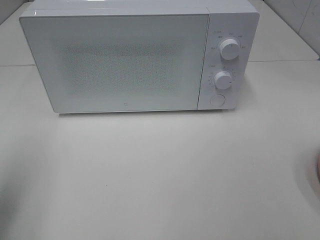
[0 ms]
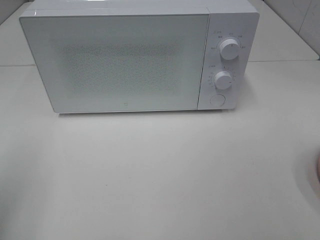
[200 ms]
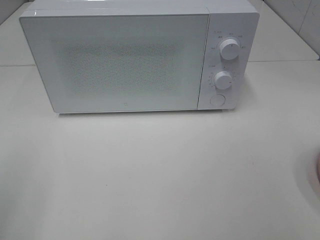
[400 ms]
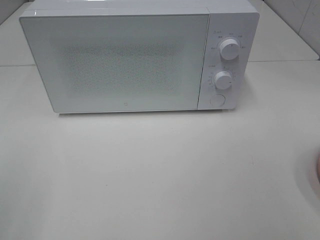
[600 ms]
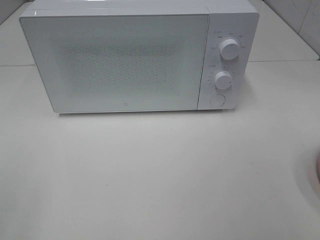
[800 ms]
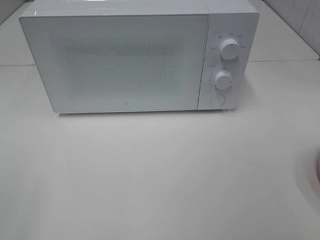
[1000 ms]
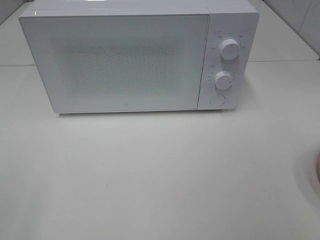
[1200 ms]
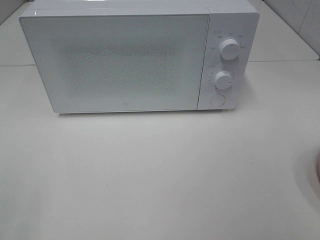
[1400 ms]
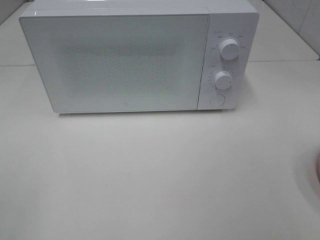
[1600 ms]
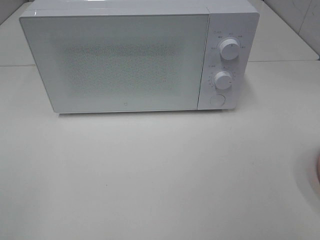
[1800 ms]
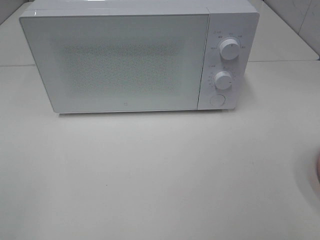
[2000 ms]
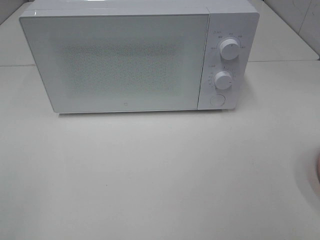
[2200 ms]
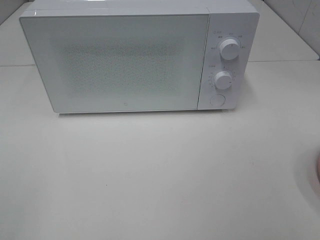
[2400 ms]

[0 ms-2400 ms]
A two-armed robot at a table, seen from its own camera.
Task of the whole recording: Heat the burger.
0 ms to 1200 ms: The left gripper heads backward, covering some 15 cm.

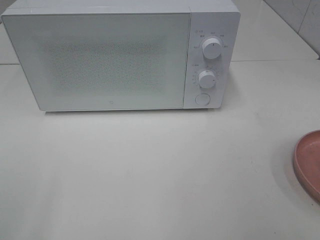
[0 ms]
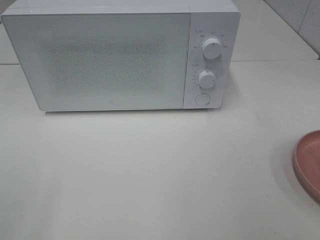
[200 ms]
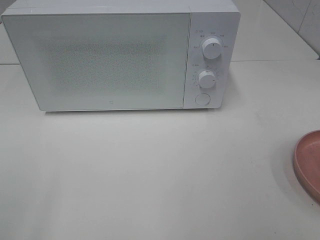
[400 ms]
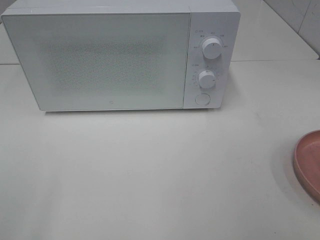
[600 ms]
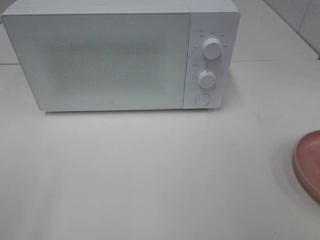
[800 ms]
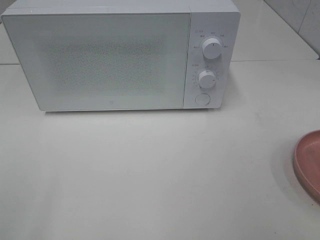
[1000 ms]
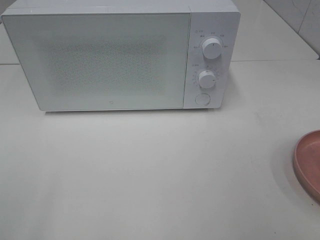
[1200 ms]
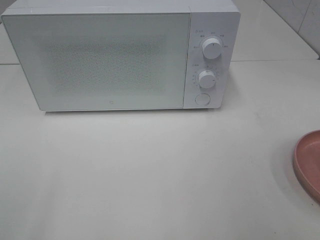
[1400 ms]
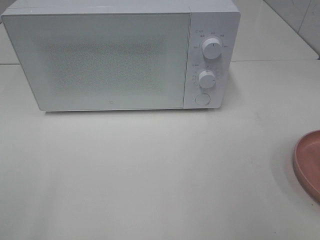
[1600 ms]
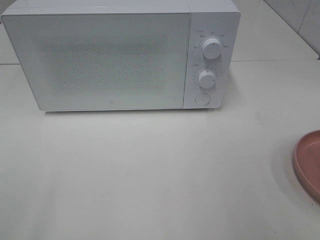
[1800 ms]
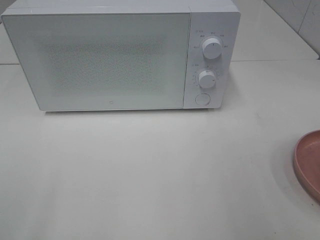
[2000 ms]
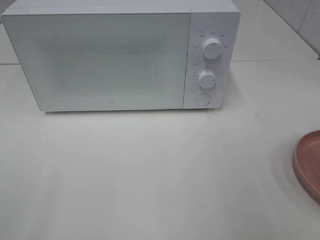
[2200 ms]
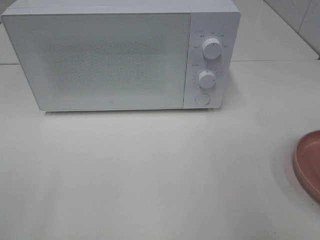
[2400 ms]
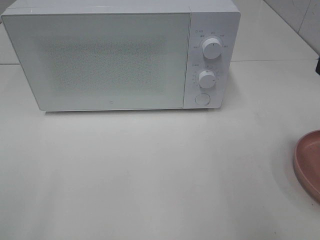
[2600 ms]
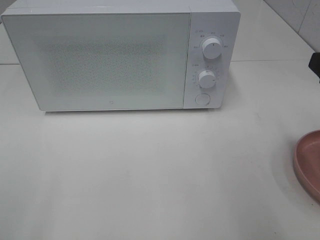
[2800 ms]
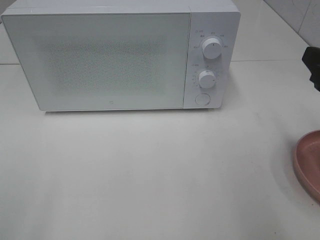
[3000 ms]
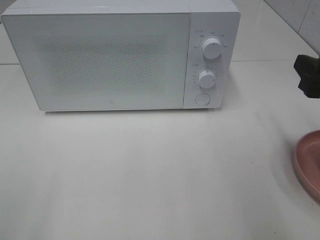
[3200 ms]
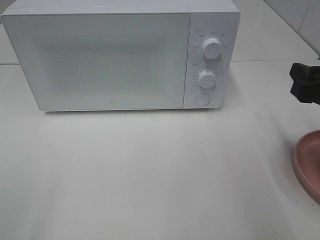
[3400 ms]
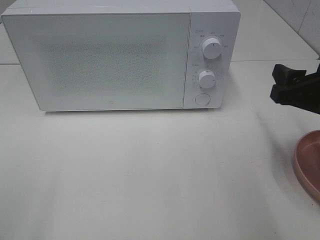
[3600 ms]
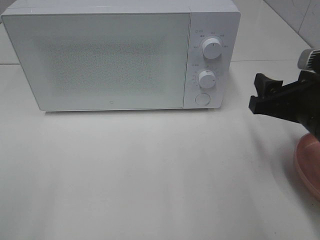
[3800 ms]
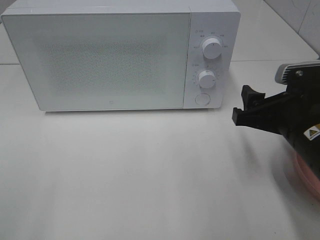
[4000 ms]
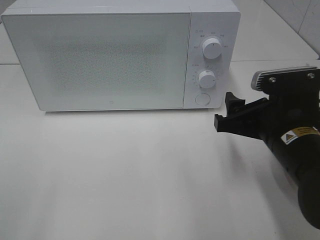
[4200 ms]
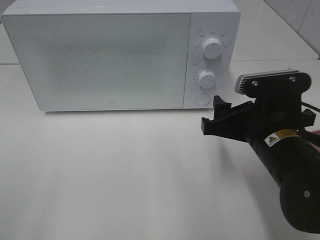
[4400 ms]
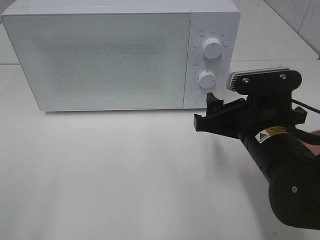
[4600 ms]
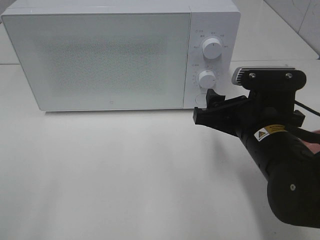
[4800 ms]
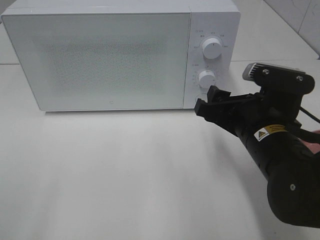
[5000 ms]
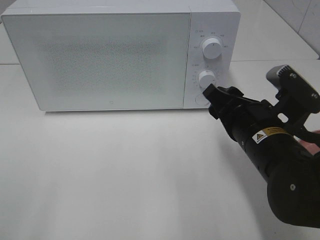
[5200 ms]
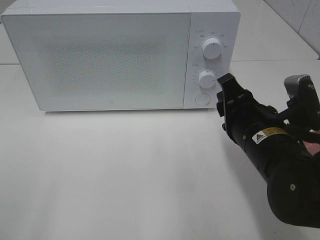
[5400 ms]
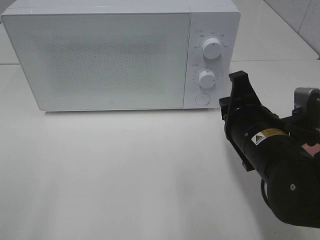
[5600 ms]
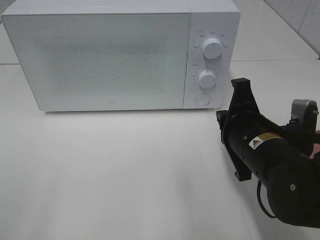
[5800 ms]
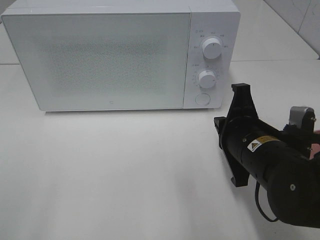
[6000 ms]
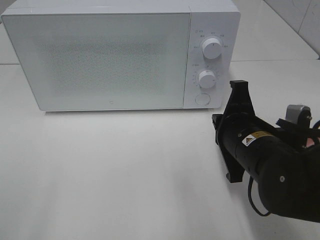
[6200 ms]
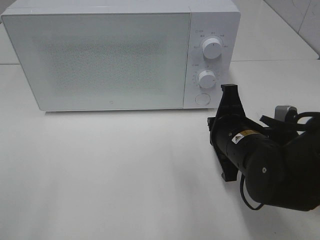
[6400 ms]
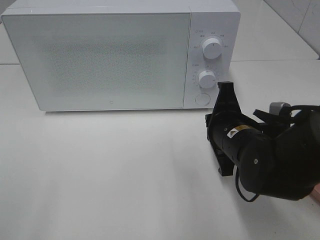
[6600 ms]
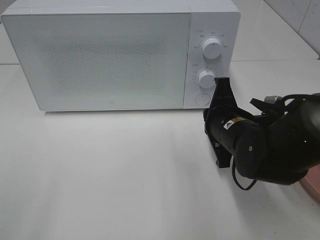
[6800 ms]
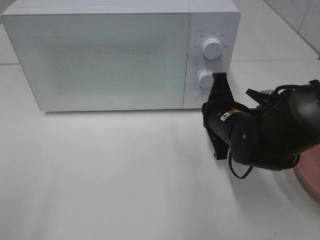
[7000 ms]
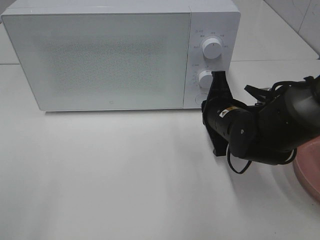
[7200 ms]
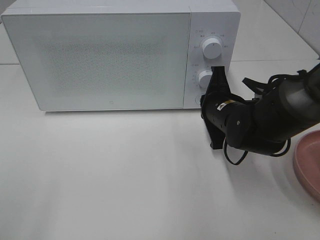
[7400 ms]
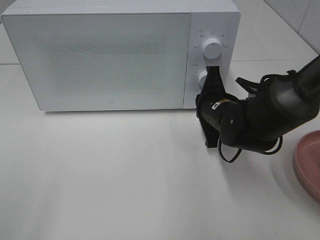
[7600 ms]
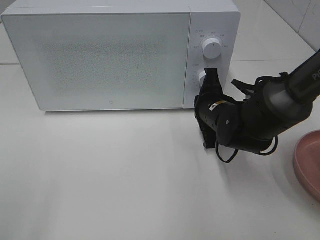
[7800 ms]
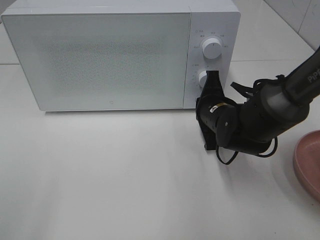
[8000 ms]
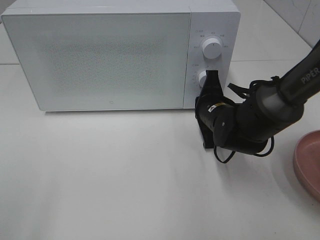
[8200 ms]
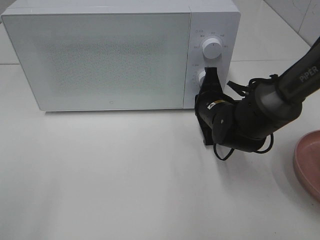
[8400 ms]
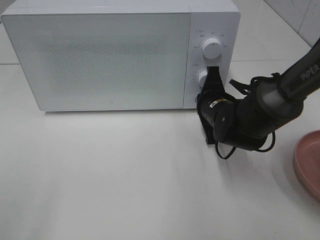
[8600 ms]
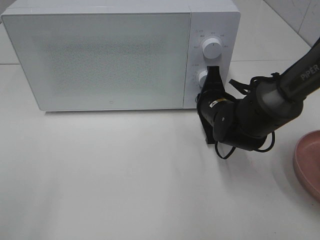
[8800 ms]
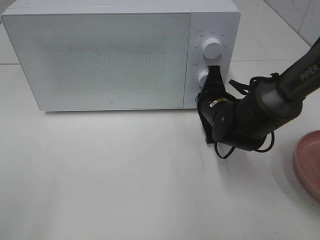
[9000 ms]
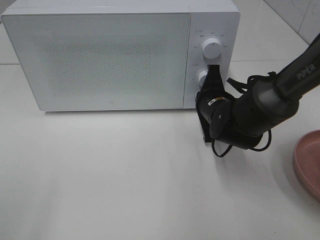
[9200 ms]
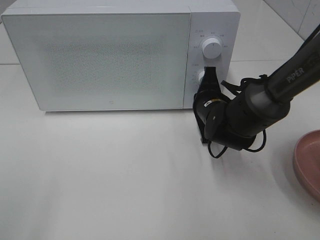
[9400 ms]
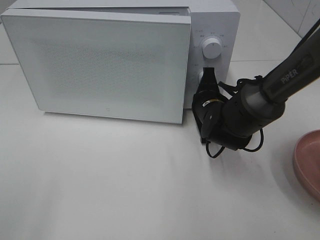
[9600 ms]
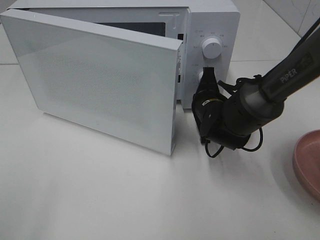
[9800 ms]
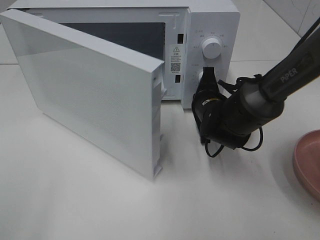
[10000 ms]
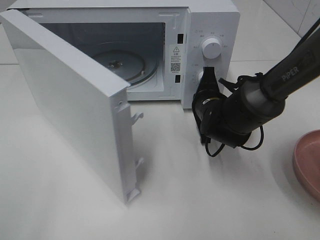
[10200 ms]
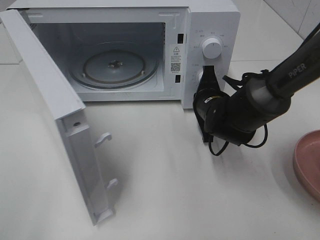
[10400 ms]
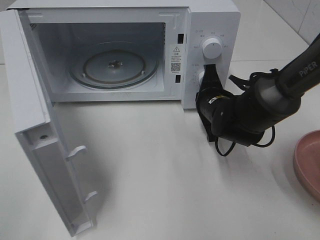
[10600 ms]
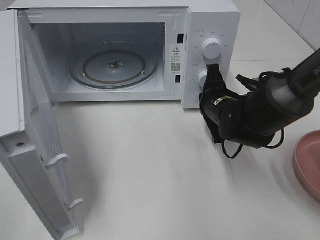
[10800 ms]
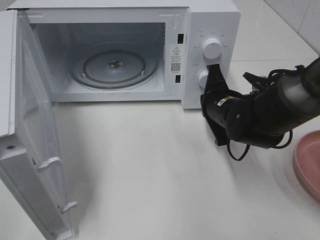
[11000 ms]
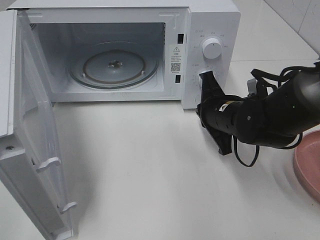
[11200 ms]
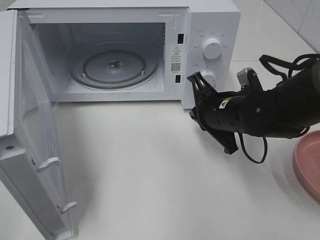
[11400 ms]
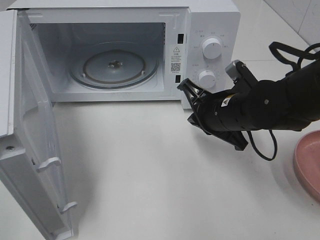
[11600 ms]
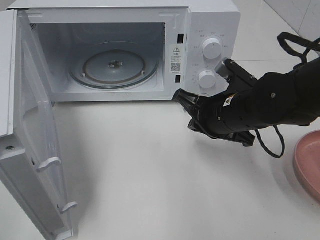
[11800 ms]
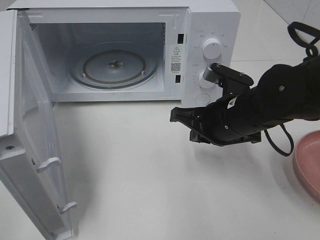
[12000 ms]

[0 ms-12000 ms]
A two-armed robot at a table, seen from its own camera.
Task of the whole recording: Heat the burger.
Step, 0 ms to 11000 ms: Right hand: press the switch.
1600 ms to 3000 ms: The right gripper heads forward and downward, covering approximately 15 cm.
3000 ms to 4400 ms: The right gripper moves to the left and downward, roughly 15 cm.
4400 ms to 6000 ms: The right gripper closes up.
6000 ms to 7600 ms: The right gripper shifts approximately 10 cm forward.
7600 ms to 9000 ms: The grippers make only small movements.
10400 ms to 12000 ms: The right gripper travels backward and upward by roughly 10 cm.

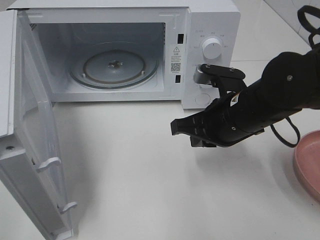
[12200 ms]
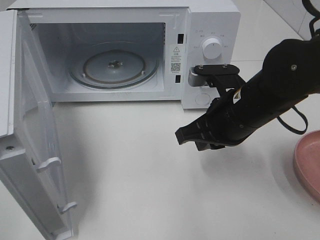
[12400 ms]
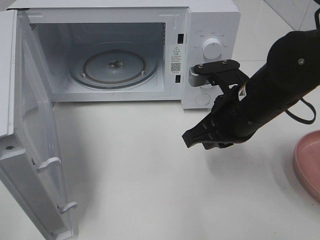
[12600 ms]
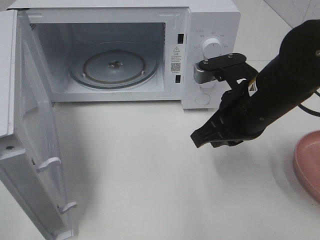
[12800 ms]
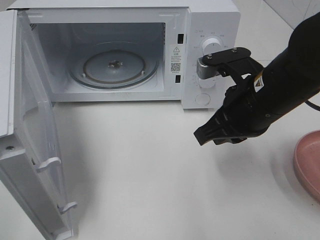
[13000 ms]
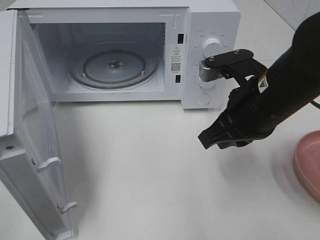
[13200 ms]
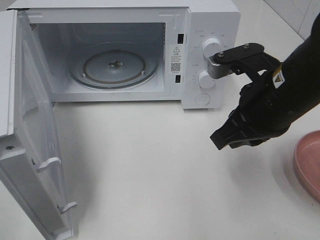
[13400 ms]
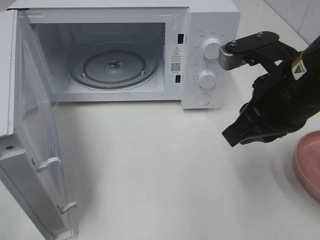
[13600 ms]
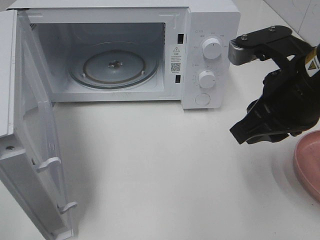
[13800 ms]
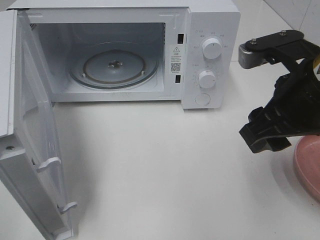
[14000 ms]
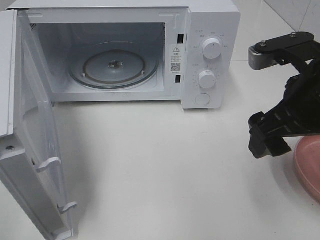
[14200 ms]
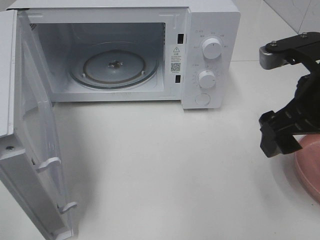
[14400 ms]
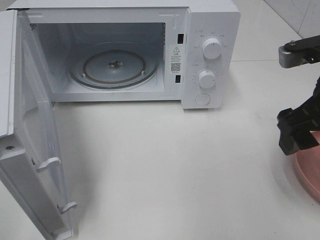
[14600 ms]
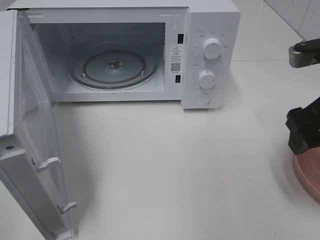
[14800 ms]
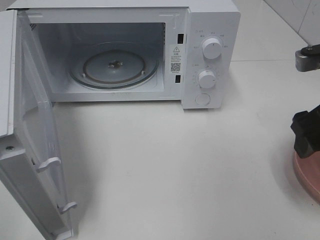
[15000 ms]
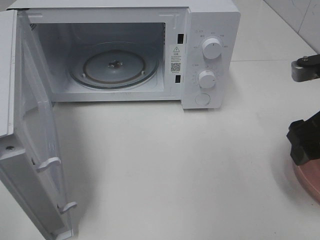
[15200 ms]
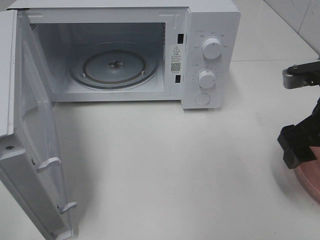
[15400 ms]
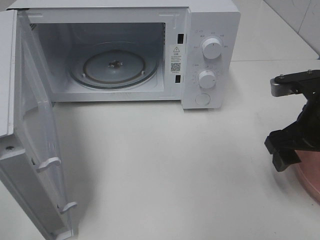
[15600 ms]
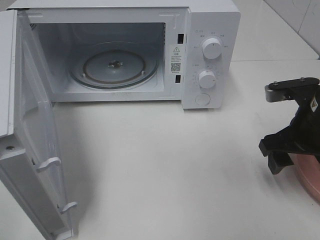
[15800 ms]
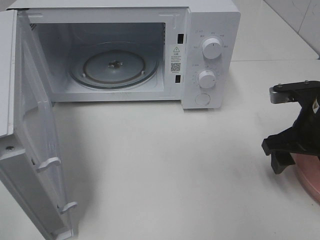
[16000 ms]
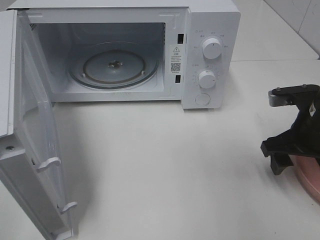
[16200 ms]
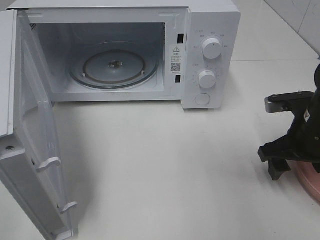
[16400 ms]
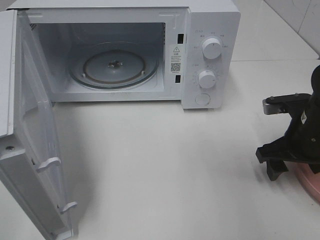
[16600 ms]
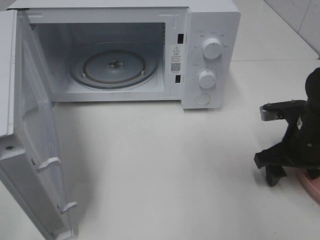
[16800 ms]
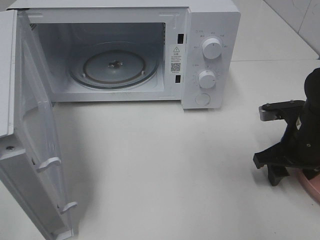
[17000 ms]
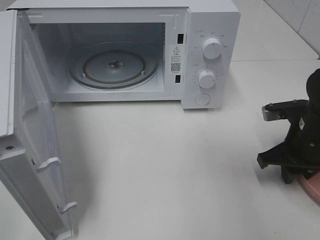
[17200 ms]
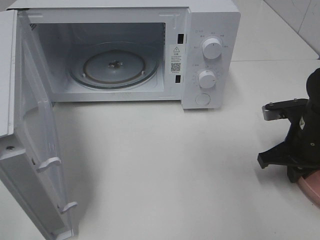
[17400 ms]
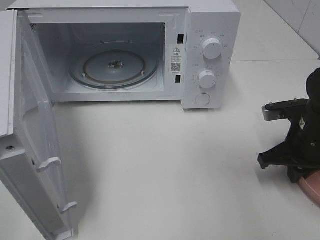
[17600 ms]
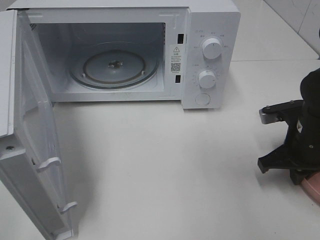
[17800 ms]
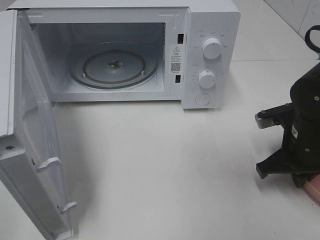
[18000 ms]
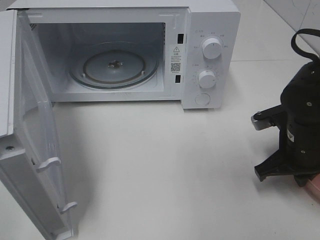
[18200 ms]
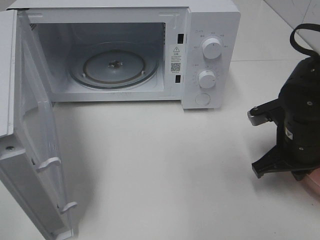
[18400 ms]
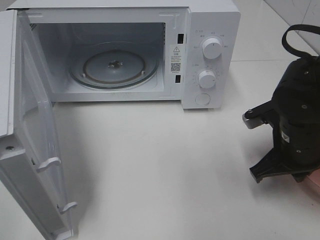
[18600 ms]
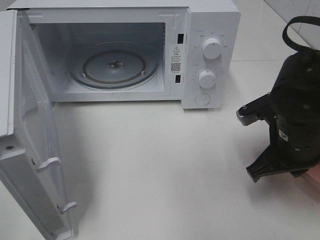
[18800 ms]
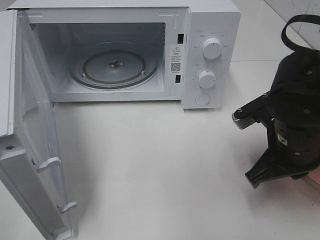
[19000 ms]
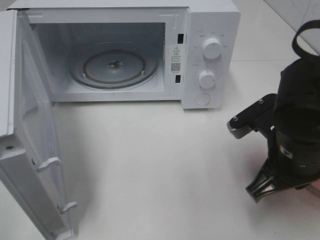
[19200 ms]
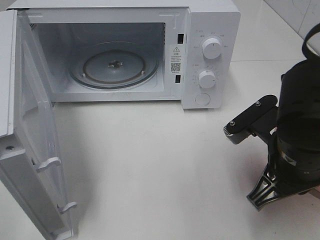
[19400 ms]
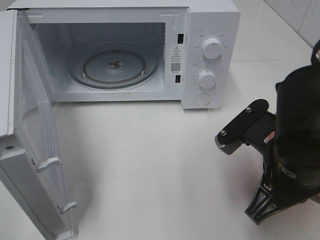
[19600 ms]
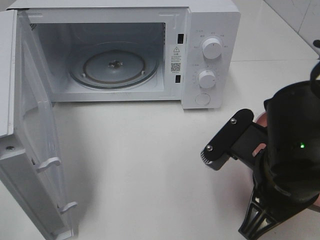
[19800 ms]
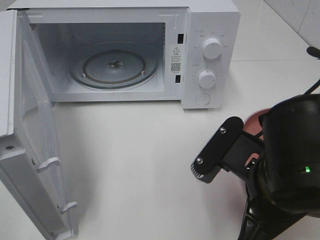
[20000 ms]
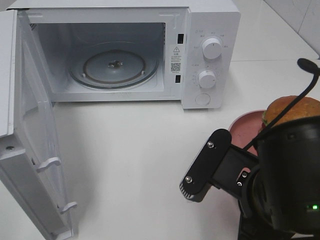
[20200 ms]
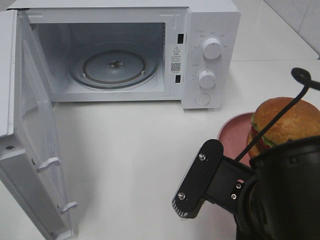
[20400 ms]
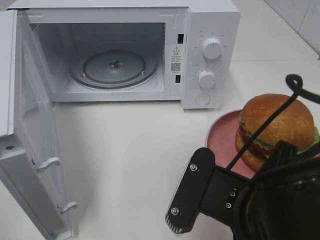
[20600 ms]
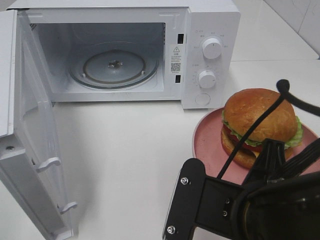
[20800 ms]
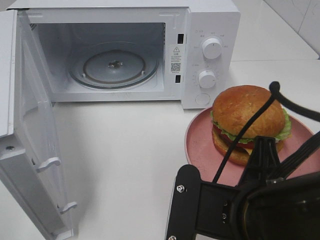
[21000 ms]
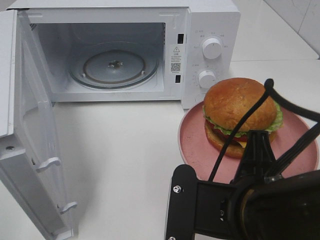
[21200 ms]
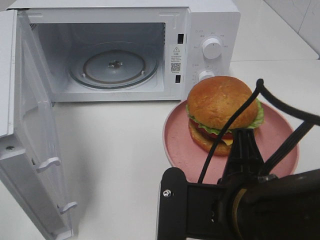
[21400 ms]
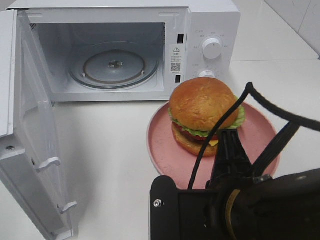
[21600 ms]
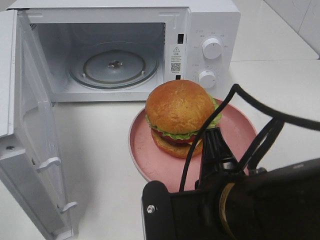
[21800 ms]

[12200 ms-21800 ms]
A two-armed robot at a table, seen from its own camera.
Task of the whole recording: Heat the burger.
Step, 12200 ms to 17800 ms: Right hand: grab the plate with the hamburger.
12200 ms to 13800 ms: The right gripper is displaced upward by roughly 10 cm.
13800 ms to 15400 ms: The right gripper shifts about 5 cm to the right, and opens.
15400 ms to 17000 ms: The right gripper heads downward, covering some 10 cm.
17000 ms to 18600 ms: The right gripper ends up roughly 5 cm from where it was, and closes its fingers.
18600 ms to 20200 ms: The right gripper moves backward and to the left, roughly 15 cm.
